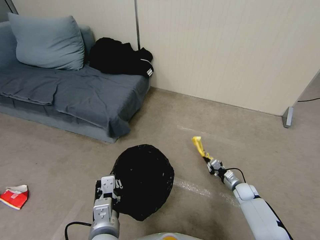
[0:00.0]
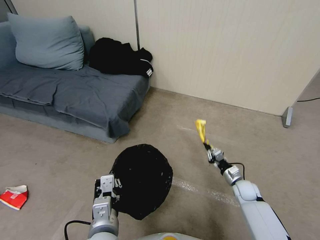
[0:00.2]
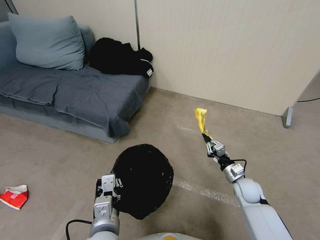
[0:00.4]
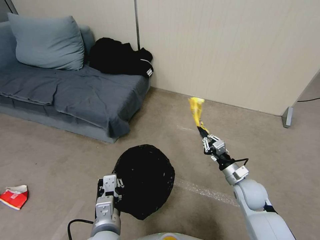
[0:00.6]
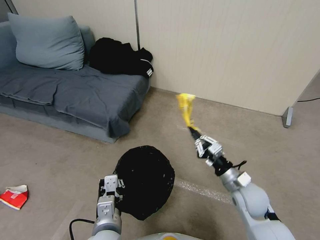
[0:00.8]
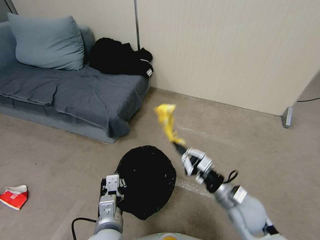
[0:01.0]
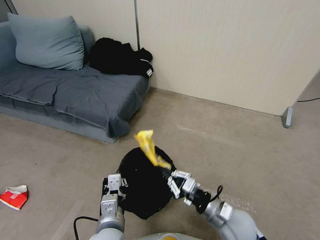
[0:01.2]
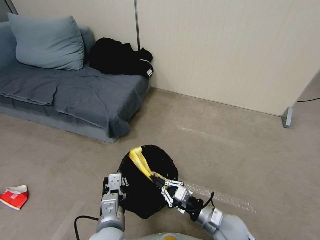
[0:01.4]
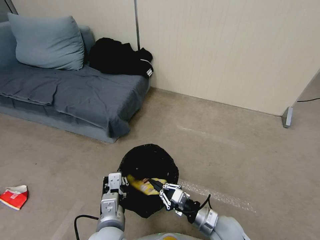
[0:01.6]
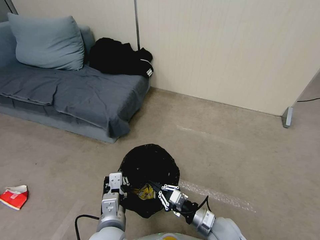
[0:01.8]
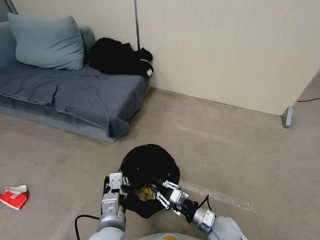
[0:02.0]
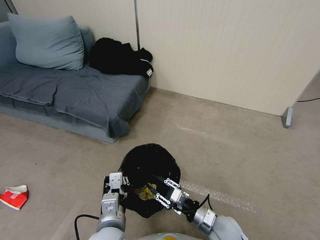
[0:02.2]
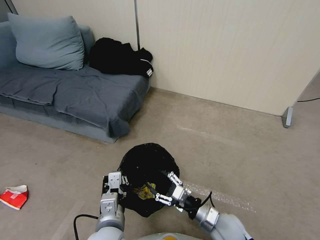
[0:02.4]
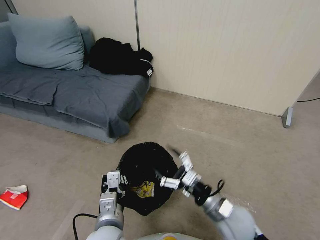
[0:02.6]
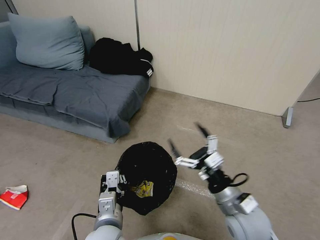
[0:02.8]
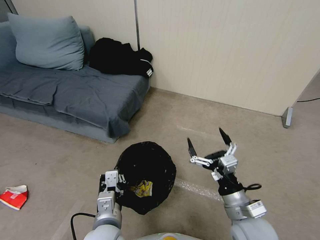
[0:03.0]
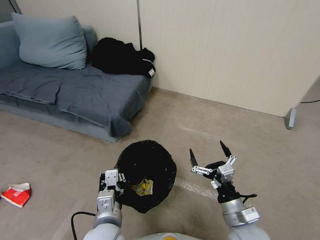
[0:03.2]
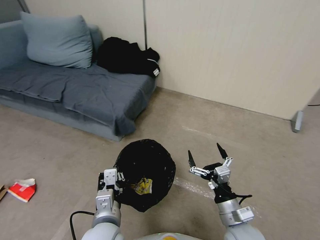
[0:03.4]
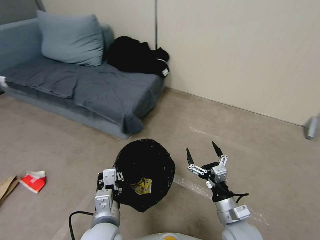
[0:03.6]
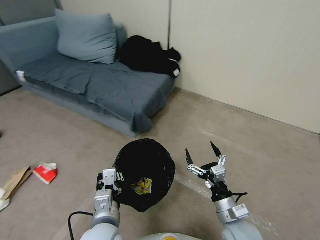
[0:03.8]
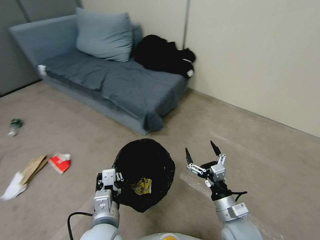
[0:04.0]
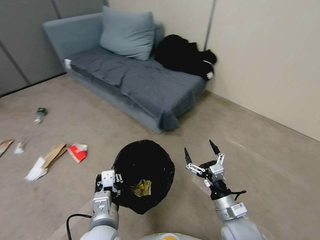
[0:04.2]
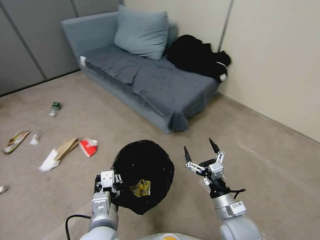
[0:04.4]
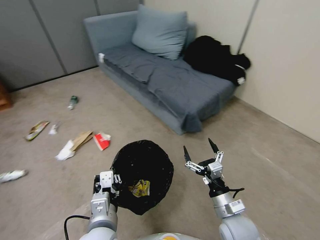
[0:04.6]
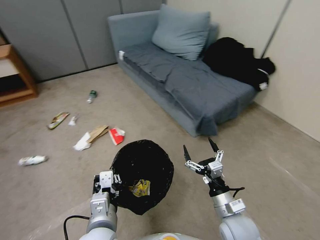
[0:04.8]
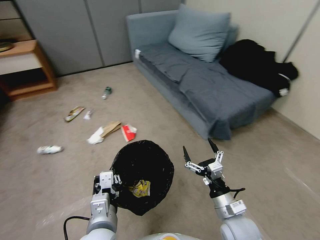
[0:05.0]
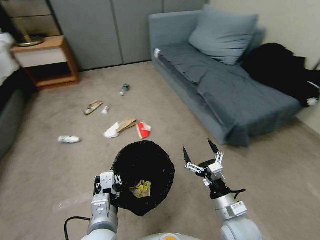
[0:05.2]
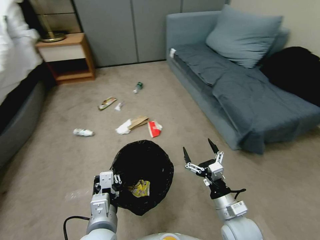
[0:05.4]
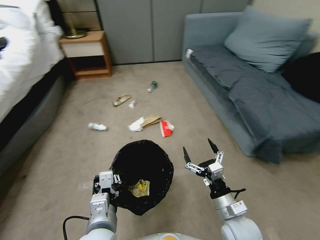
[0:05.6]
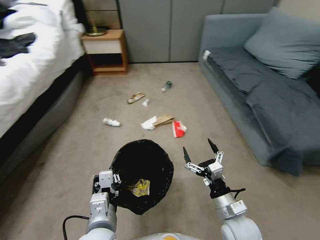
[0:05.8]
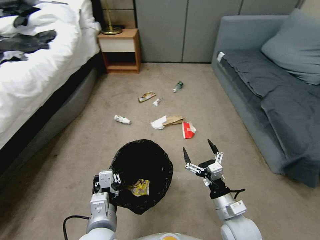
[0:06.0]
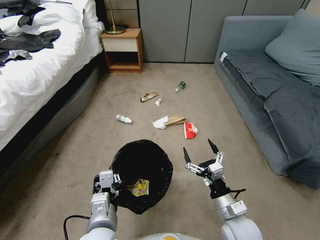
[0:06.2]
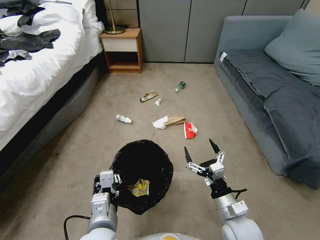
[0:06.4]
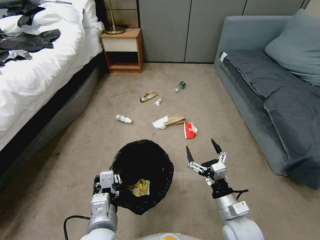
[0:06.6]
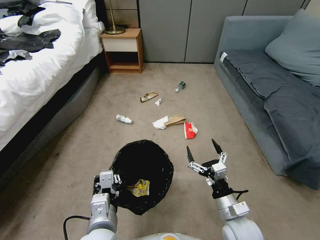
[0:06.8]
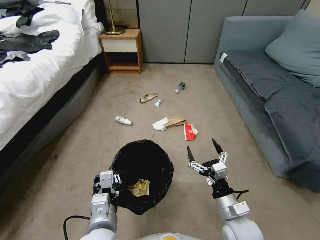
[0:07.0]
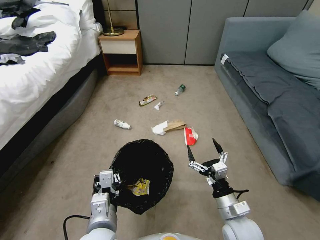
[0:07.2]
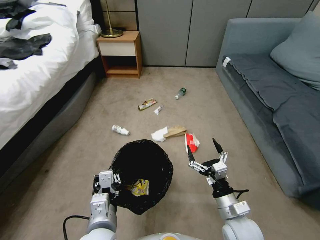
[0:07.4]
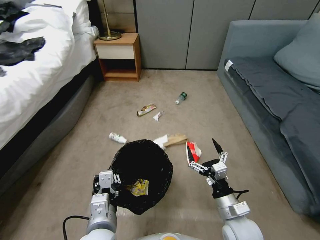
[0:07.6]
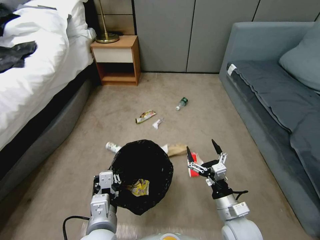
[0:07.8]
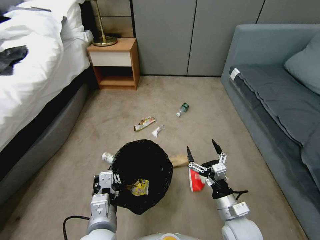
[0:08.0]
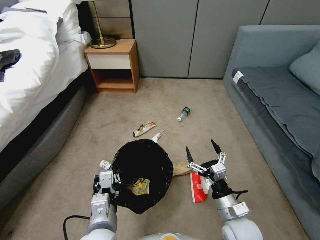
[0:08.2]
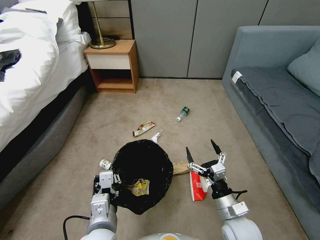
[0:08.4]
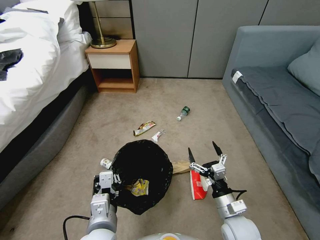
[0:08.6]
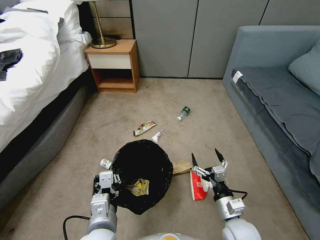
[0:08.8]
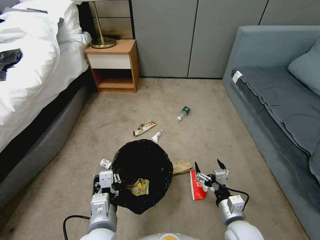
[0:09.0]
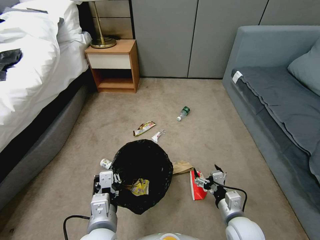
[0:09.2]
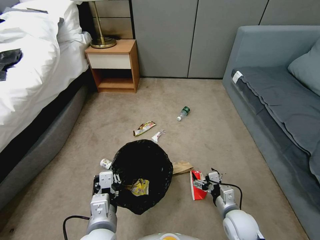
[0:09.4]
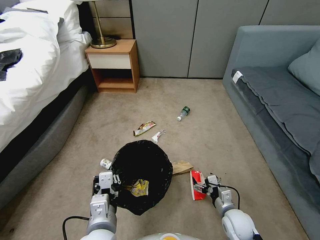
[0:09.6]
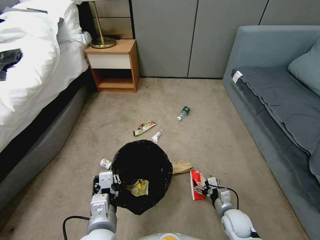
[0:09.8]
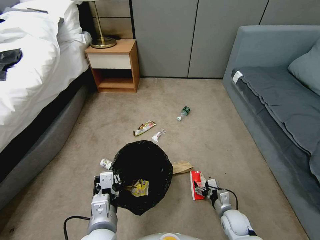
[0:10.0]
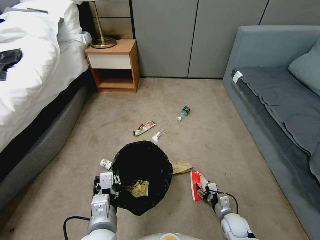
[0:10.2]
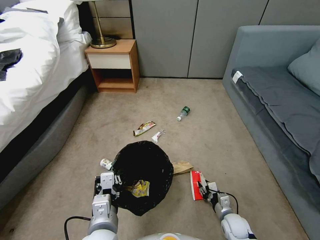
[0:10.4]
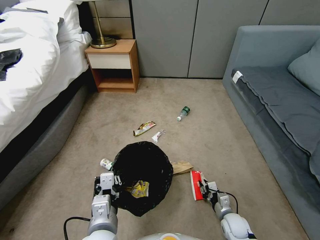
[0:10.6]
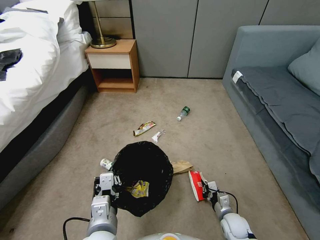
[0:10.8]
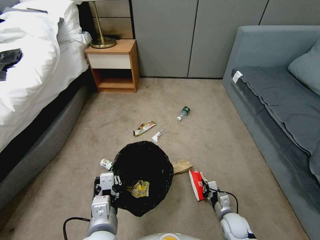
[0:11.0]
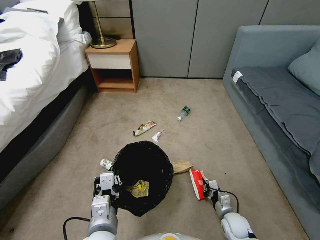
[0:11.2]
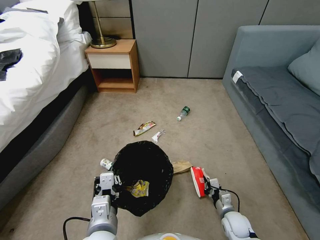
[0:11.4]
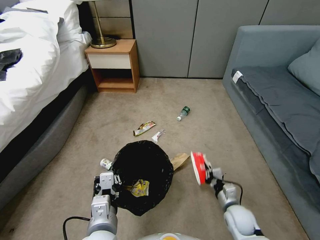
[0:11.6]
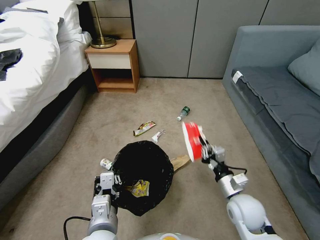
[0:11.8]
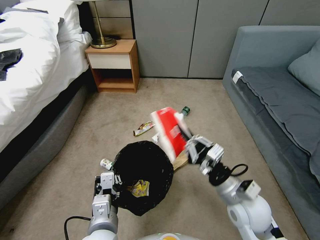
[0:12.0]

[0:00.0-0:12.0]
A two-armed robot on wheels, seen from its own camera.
Task of the whole recording: Pick up the trash bin, then pick up the garbage from the floor and place it into the trash bin.
0:00.0 to 0:01.6: The right gripper moves to the left, backward and upward, roughly 30 cm.
0:01.6 to 0:03.0: The right gripper moves upward, roughly 10 cm, and opens.
0:03.0 to 0:04.4: The right gripper goes some 5 cm downward.
0:09.0 to 0:10.4: The right gripper heads downward, covering about 15 cm, and closes.
0:10.4 to 0:12.0: The right gripper heads upward, covering some 30 cm, and closes.

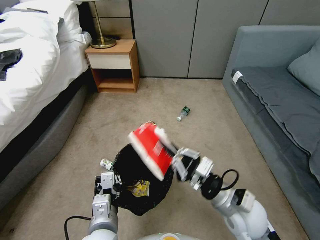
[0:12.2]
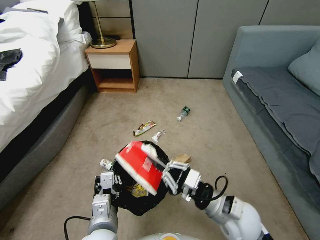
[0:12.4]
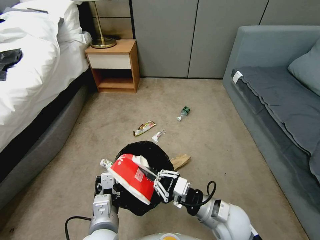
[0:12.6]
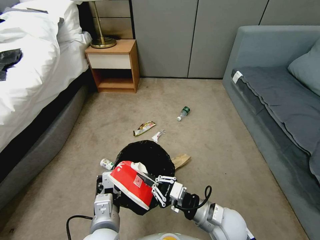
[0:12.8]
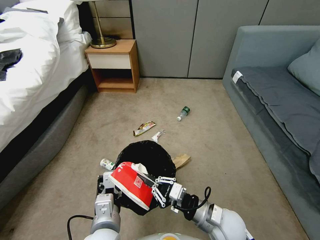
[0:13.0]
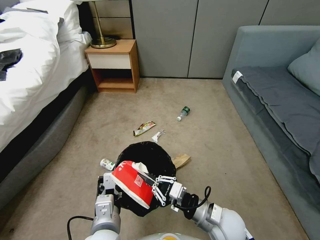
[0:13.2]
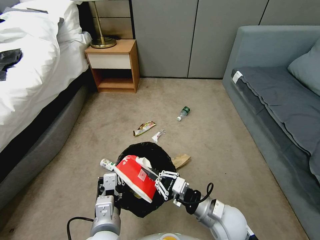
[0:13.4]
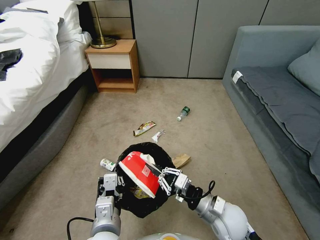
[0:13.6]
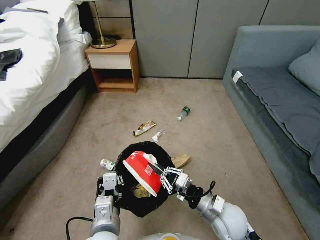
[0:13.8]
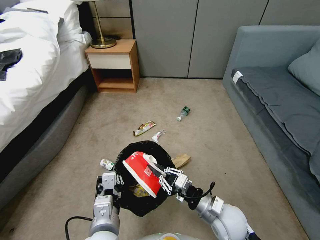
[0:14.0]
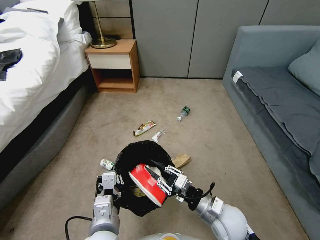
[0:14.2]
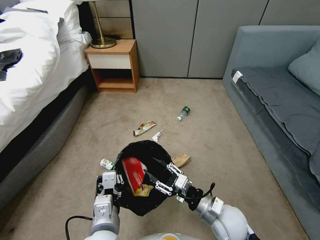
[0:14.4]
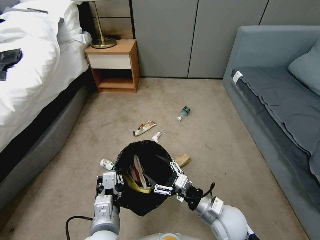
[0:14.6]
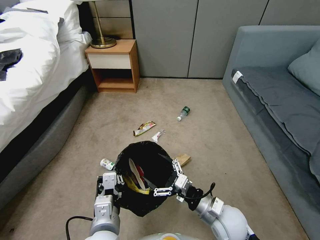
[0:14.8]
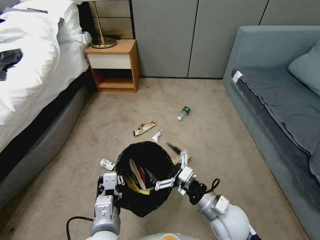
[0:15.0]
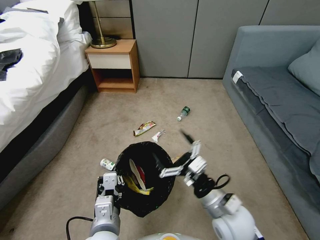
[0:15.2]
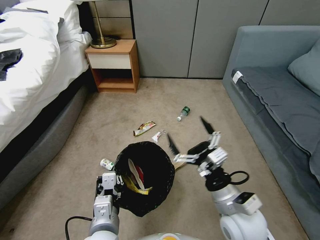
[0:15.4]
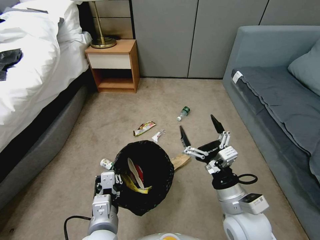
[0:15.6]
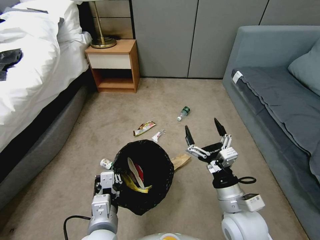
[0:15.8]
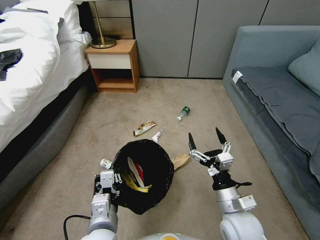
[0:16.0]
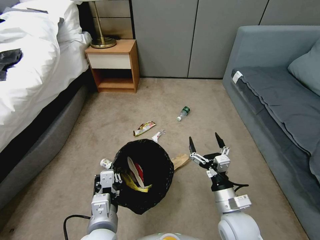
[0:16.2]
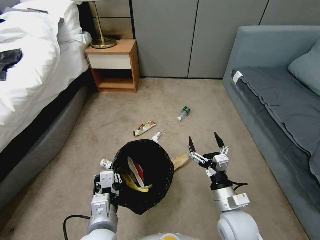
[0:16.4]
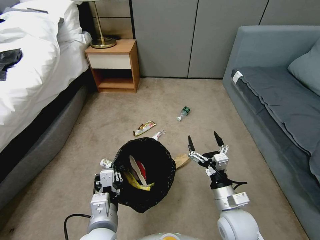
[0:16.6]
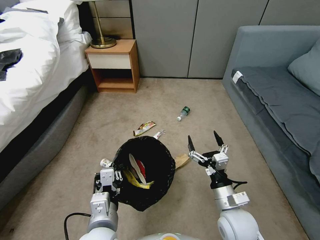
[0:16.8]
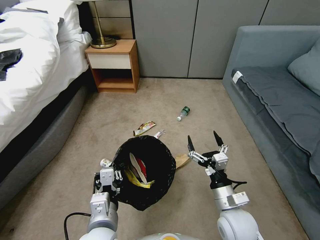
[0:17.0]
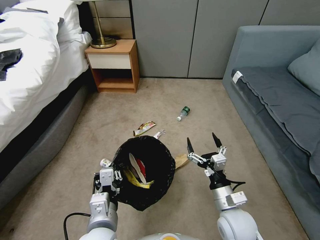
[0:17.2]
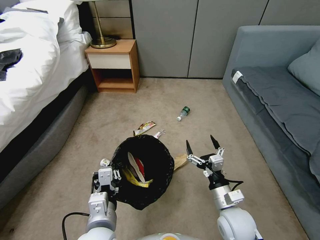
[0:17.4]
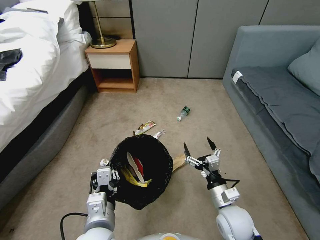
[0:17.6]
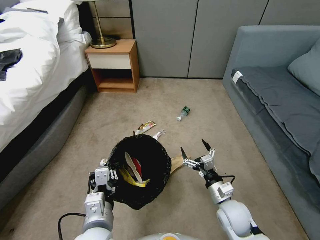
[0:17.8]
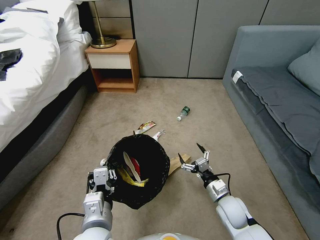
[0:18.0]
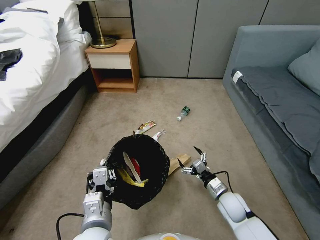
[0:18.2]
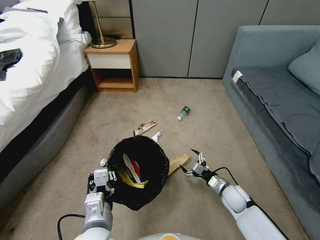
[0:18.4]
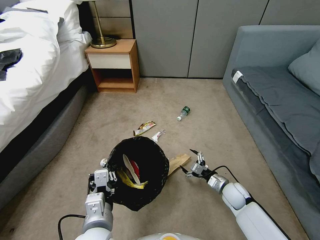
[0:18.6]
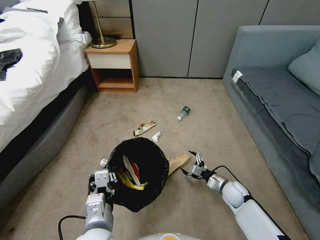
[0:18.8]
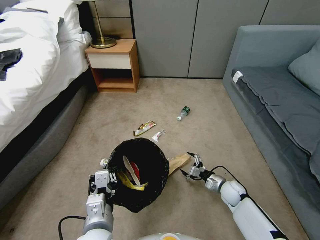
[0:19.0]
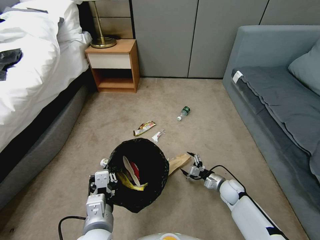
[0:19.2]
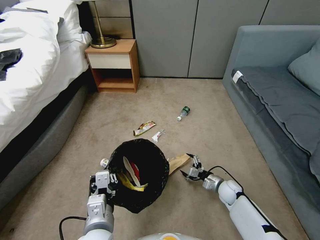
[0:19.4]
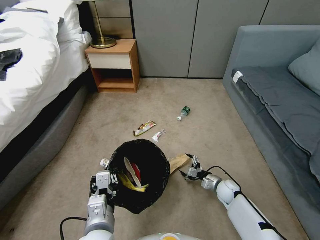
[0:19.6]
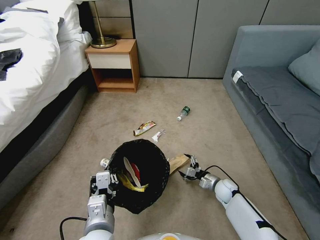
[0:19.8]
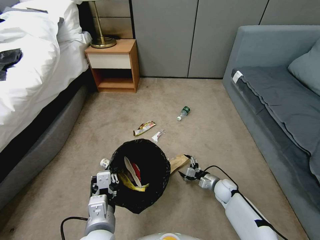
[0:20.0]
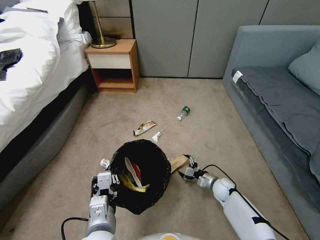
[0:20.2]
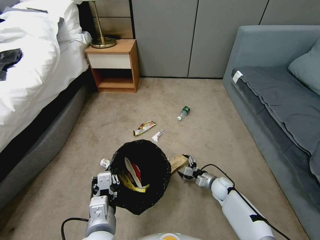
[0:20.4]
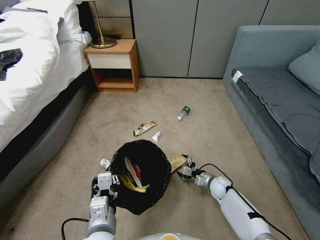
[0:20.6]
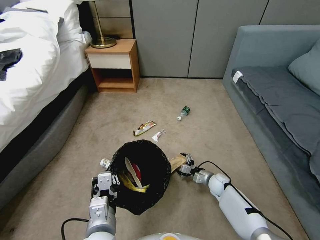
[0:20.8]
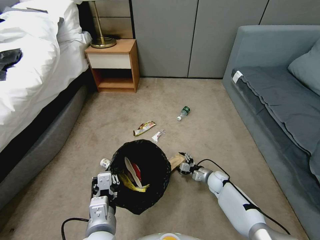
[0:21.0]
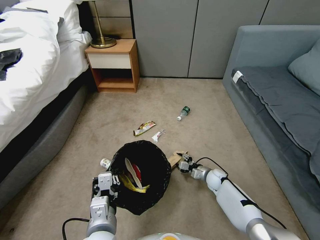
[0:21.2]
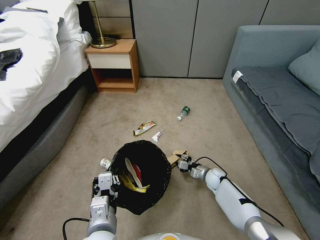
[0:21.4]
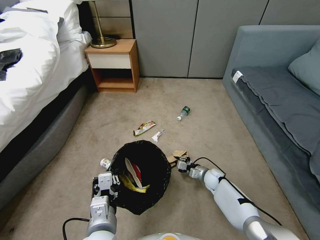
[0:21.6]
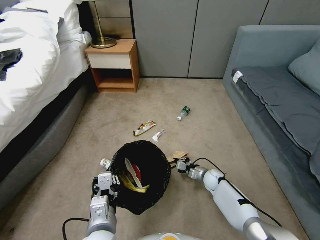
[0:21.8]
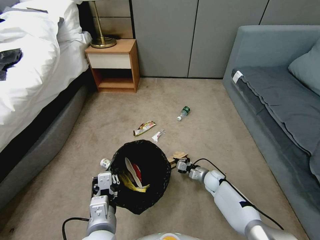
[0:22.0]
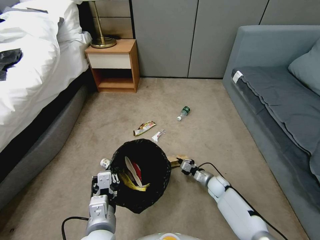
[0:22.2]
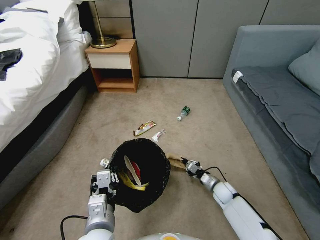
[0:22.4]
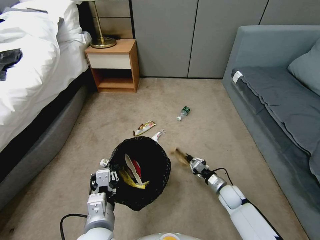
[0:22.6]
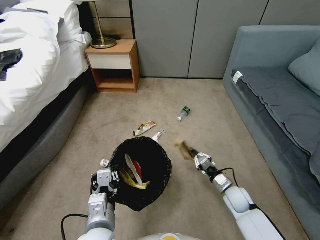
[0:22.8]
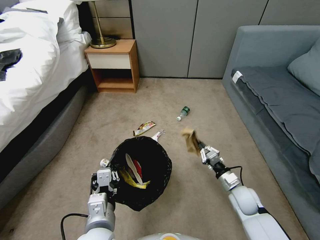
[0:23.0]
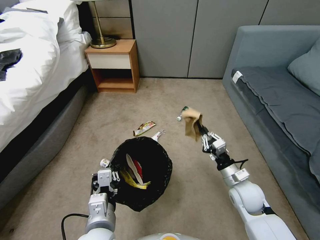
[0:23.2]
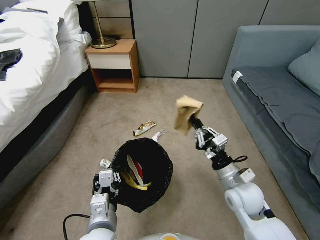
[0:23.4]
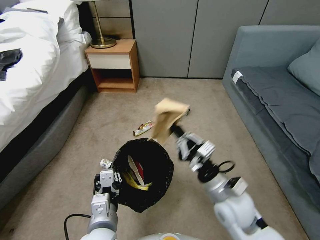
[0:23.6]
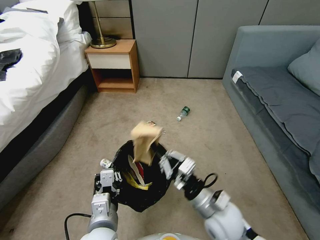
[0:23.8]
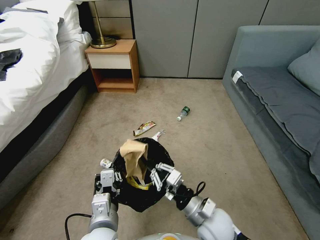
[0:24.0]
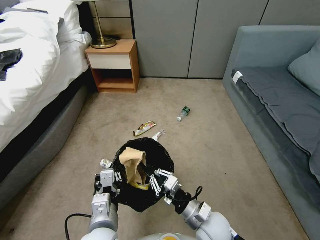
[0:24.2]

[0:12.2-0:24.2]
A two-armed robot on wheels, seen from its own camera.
Task of the whole recording: Pick up the trash bin, then pick up the garbage from the floor and place it into the trash bin.
0:12.2 to 0:13.8: The right gripper shifts approximately 10 cm downward.
0:13.8 to 0:15.2: The right gripper travels upward by some 5 cm, and opens.
0:15.2 to 0:16.6: The right gripper changes place by roughly 5 cm.
0:16.6 to 0:18.2: The right gripper travels downward, forward and to the right by approximately 15 cm.
0:18.2 to 0:19.8: The right gripper heads downward and forward, covering about 10 cm.
0:19.8 to 0:21.2: The right gripper shifts approximately 5 cm forward, and closes up.
0:21.2 to 0:22.6: The right gripper is displaced backward by approximately 10 cm, and closes its fingers.
0:22.6 to 0:24.2: The right gripper moves upward, to the left and backward, approximately 25 cm.
